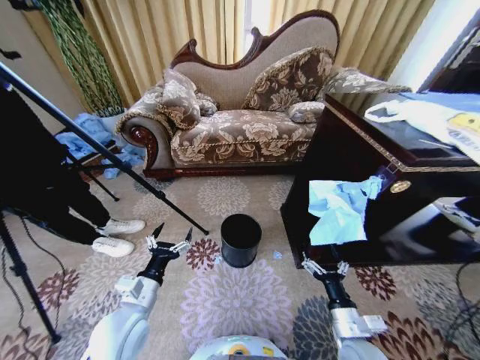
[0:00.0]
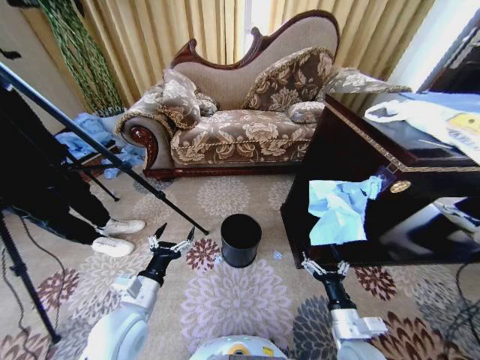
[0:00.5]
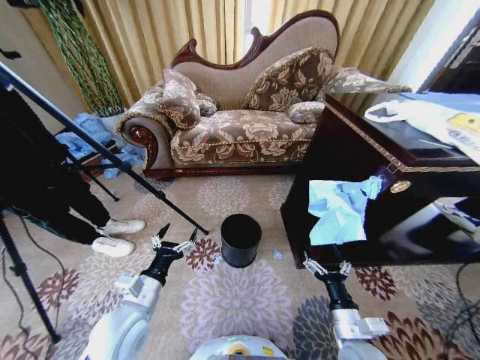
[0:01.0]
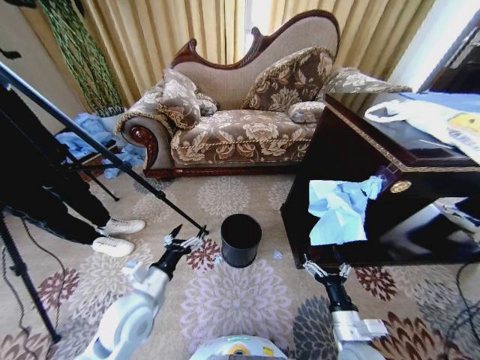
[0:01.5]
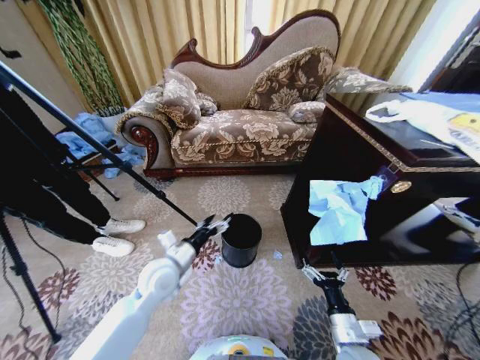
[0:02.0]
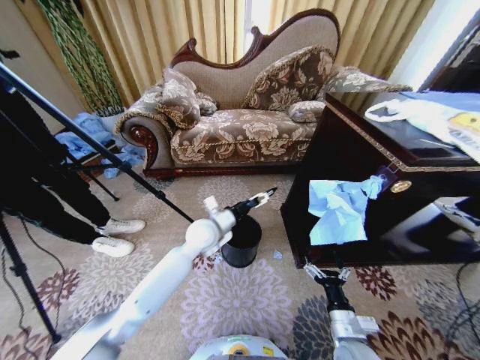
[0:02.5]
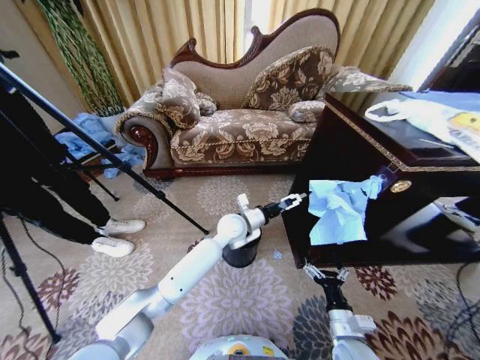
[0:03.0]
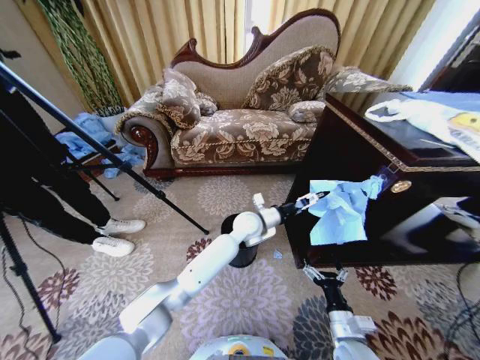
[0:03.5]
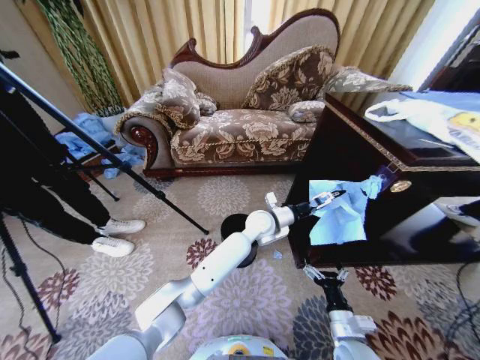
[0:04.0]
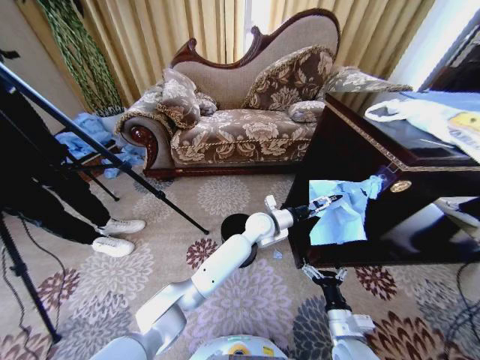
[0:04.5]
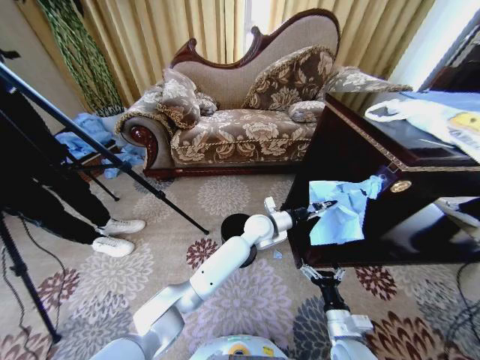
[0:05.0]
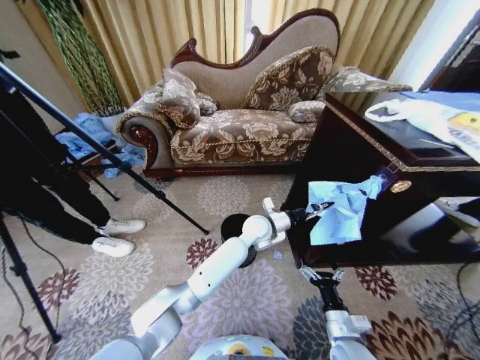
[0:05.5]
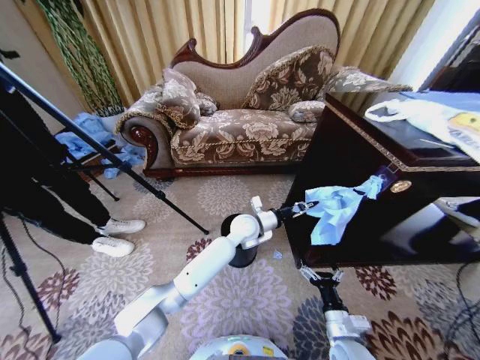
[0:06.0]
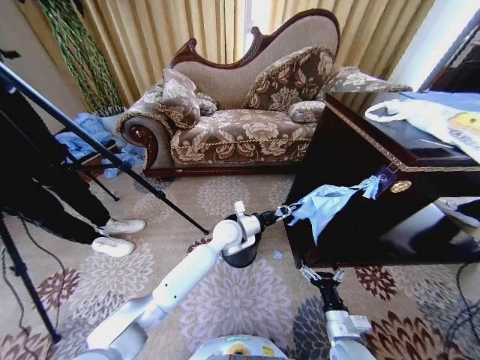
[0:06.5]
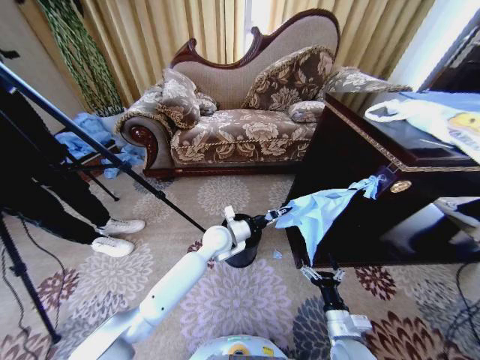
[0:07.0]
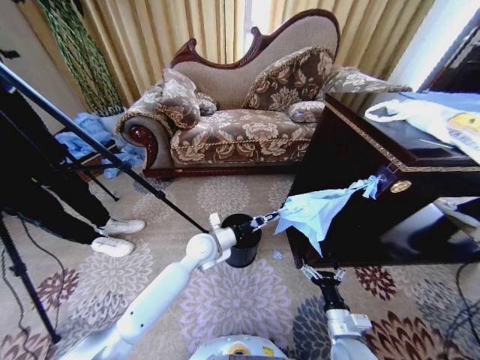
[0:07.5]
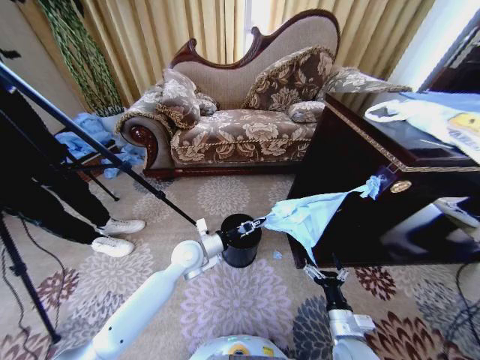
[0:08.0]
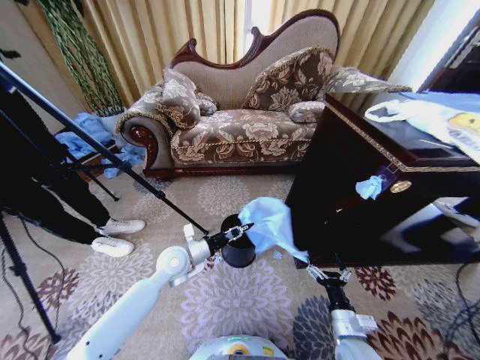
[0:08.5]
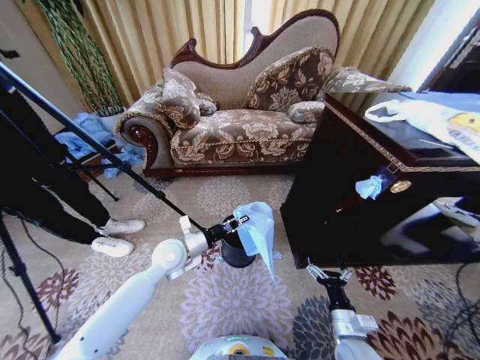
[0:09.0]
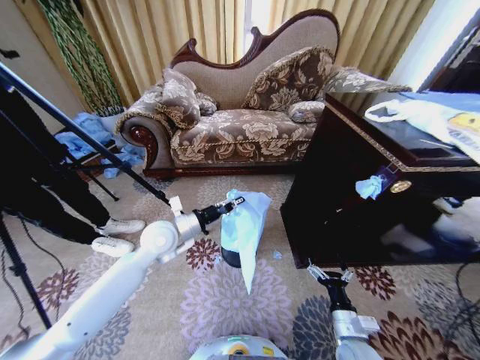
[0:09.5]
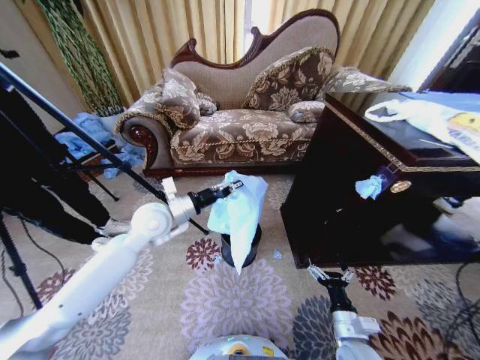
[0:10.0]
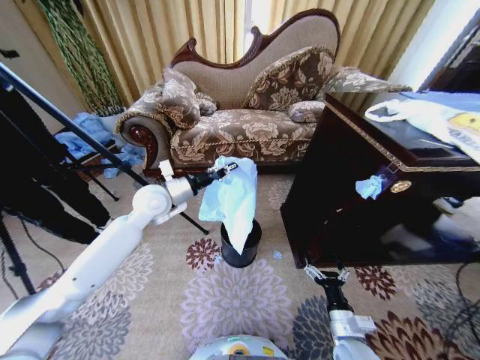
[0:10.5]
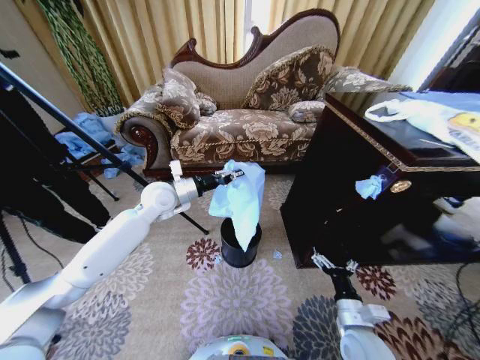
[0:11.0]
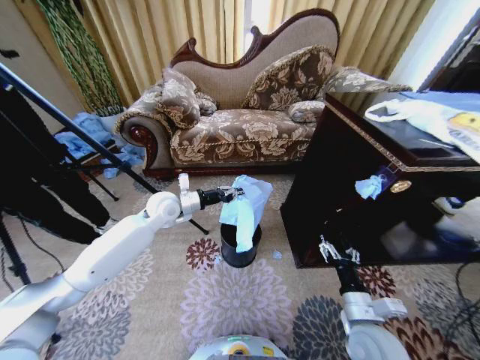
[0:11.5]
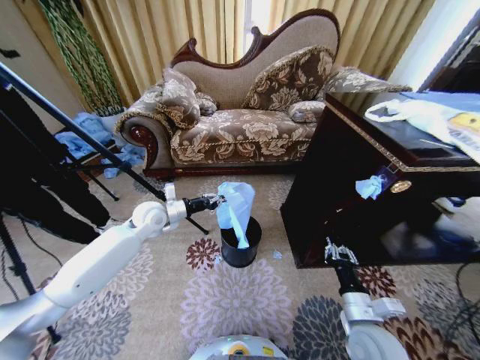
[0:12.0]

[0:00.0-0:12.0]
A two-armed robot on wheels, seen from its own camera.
Task of the whole recording: Place a garbage bag over the trash bin.
0:02.0 to 0:04.0: The left gripper heads to the right and forward, covering approximately 30 cm.
0:04.0 to 0:06.0: The left gripper changes place by some 5 cm, and closes its fingers.
0:06.0 to 0:08.0: The left gripper goes approximately 20 cm to the left and backward.
0:08.0 to 0:10.0: The left gripper shifts approximately 15 cm upward and to the left.
0:10.0 to 0:12.0: The right gripper shifts some 10 cm upward, and closes its fingers. The left gripper shifts about 10 cm downward, forward and to the left.

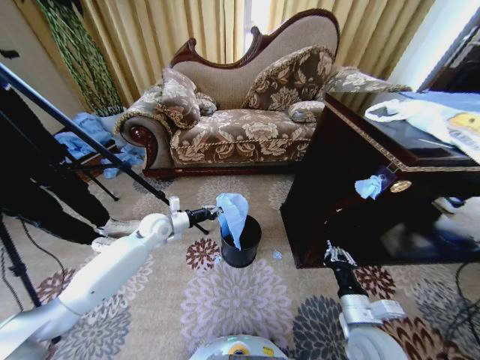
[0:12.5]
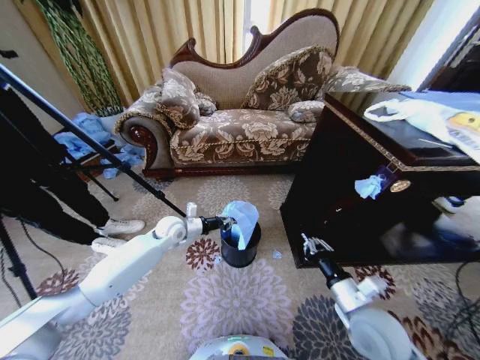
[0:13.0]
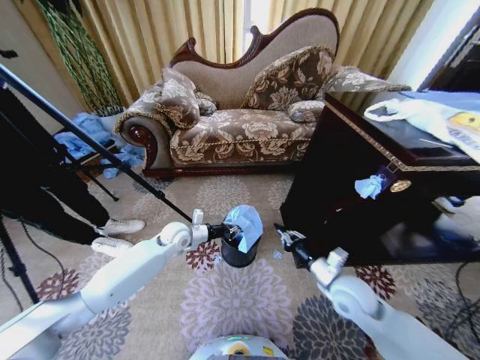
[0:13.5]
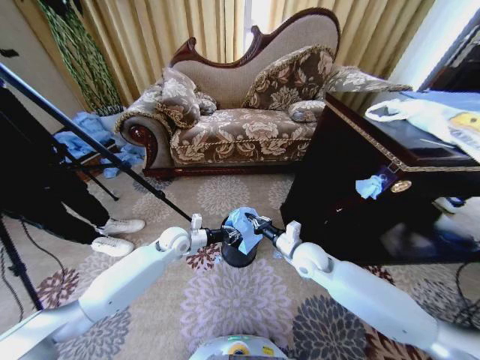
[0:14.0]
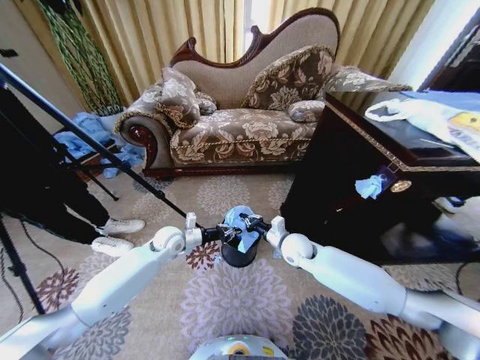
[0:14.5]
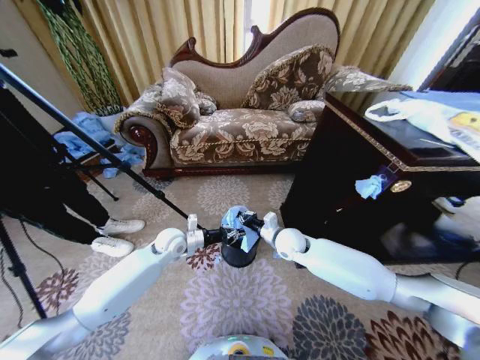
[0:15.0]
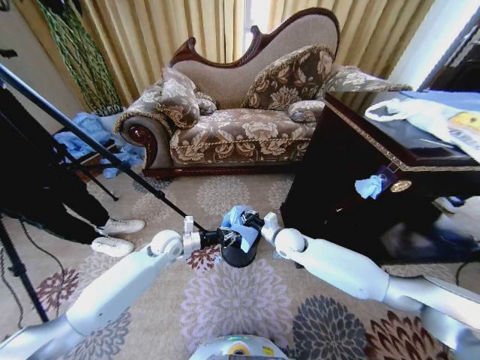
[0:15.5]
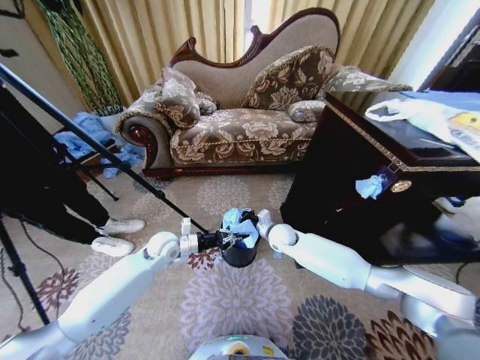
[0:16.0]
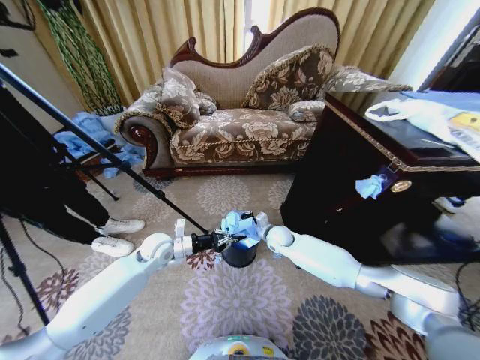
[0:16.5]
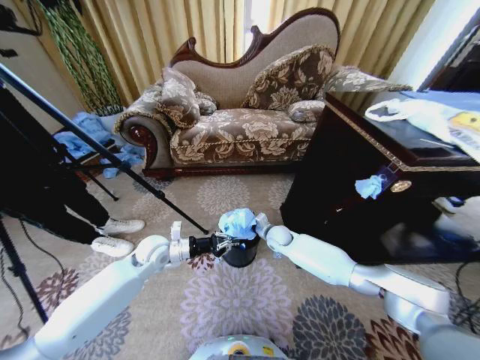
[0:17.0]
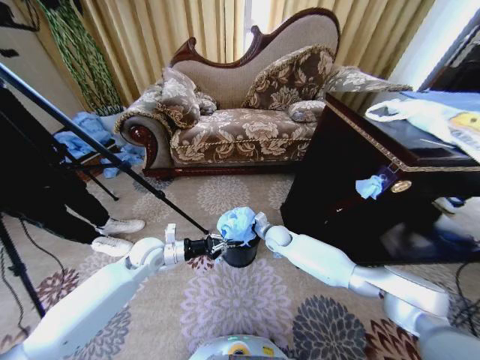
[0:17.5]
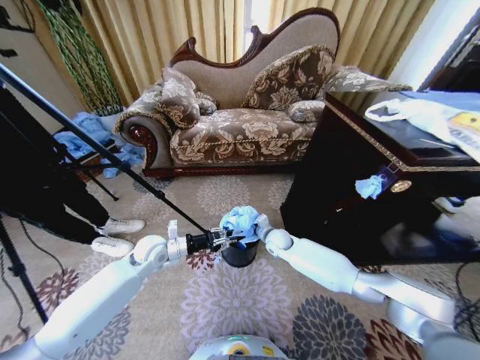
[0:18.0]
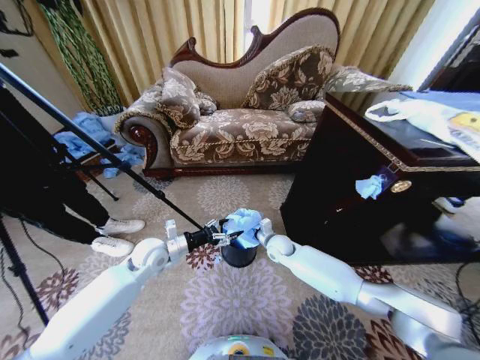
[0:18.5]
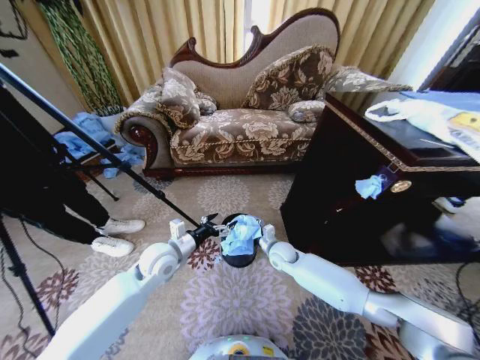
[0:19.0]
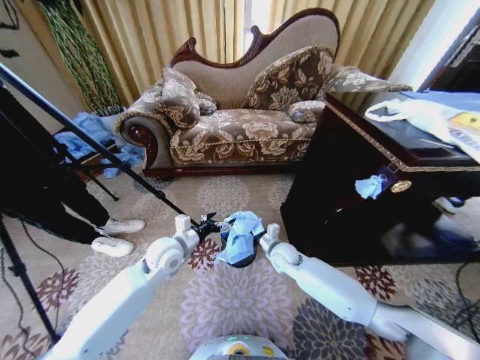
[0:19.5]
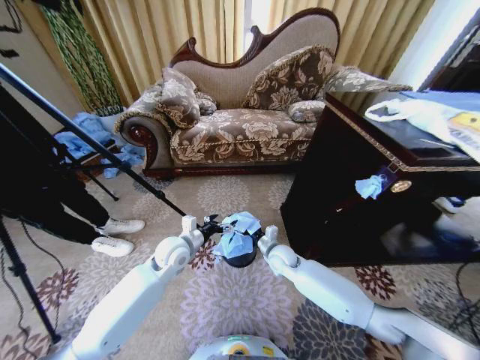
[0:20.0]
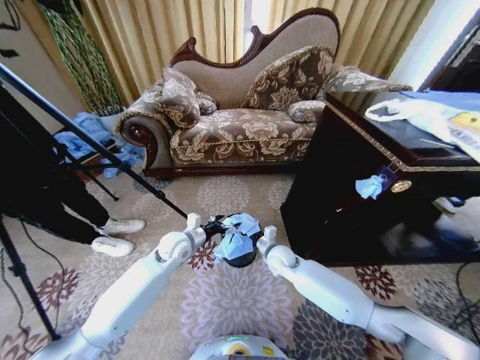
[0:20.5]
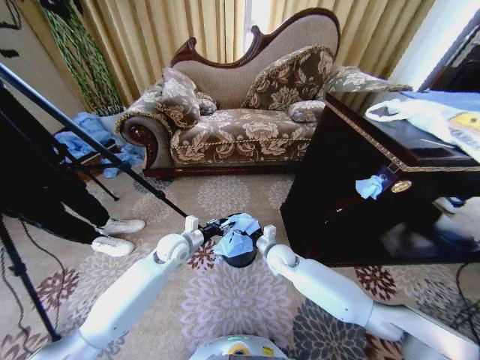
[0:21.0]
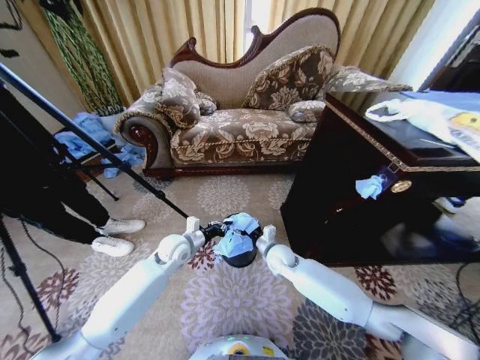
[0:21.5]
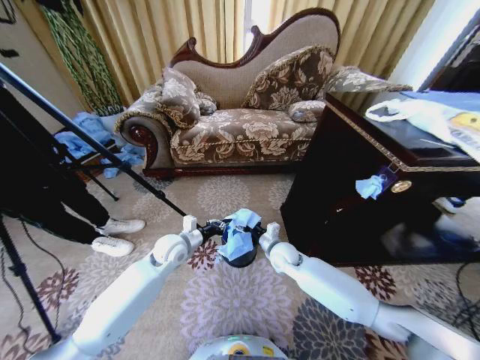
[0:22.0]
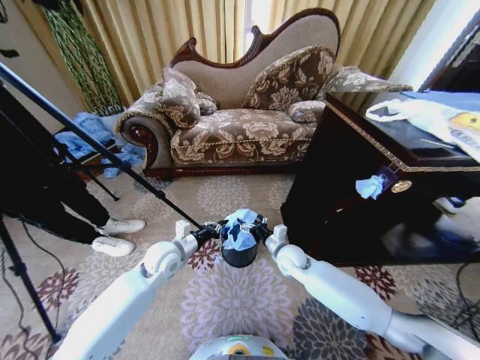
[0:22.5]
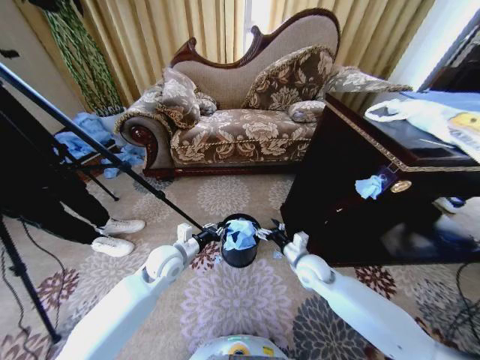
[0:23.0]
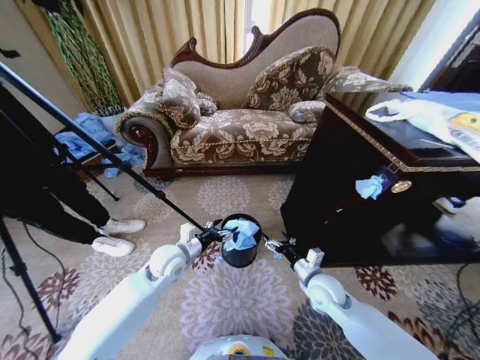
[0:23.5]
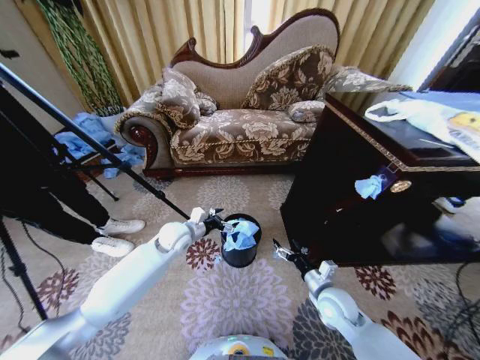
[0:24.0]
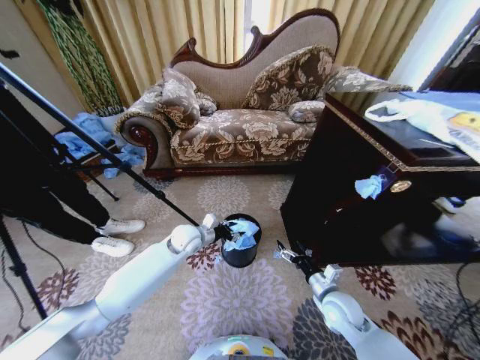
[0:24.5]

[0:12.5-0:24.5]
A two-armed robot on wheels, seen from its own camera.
Task of the whole recording: Place a garbage bag over the trash bin.
0:12.5 to 0:14.5: The right gripper shifts approximately 25 cm forward and to the left. Meanwhile the left gripper ends up roughly 5 cm from where it was.
0:14.5 to 0:16.5: The right gripper moves forward, some 5 cm.
0:16.5 to 0:18.5: The left gripper opens, while the right gripper opens up.
0:18.5 to 0:20.5: The left gripper goes about 5 cm to the right. The right gripper ends up about 5 cm from where it was.
0:20.5 to 0:22.5: The left gripper closes.
0:22.5 to 0:24.5: The left gripper moves forward, approximately 10 cm, and opens. Meanwhile the right gripper is displaced backward and to the right by roughly 20 cm.

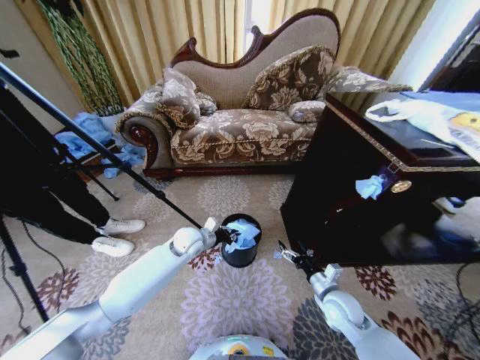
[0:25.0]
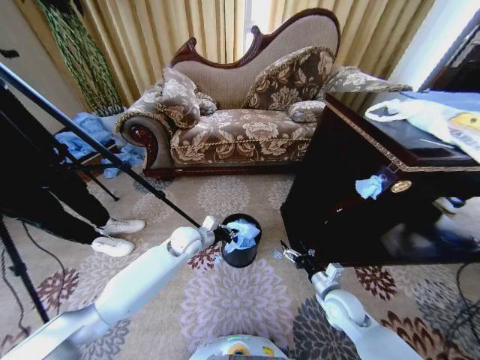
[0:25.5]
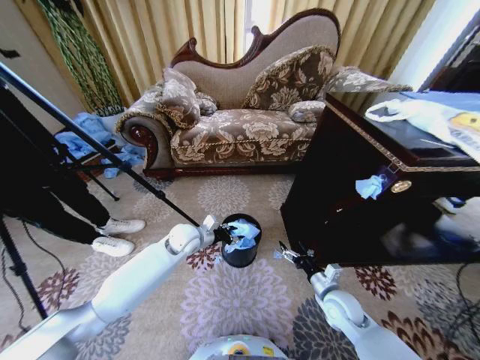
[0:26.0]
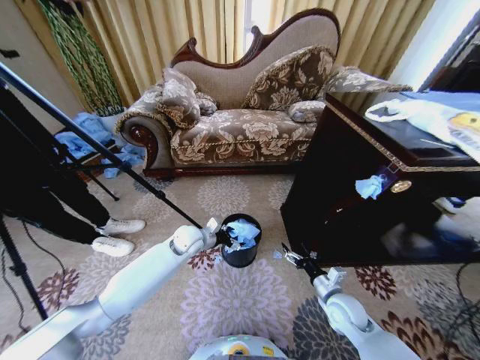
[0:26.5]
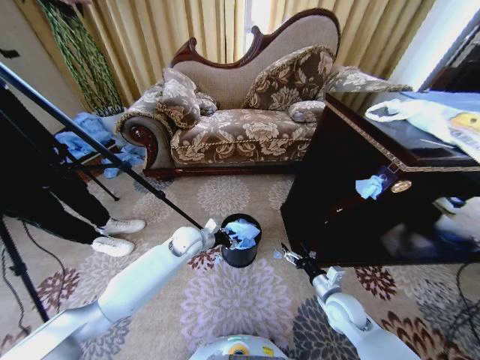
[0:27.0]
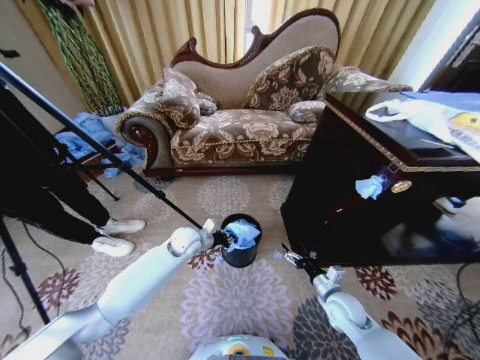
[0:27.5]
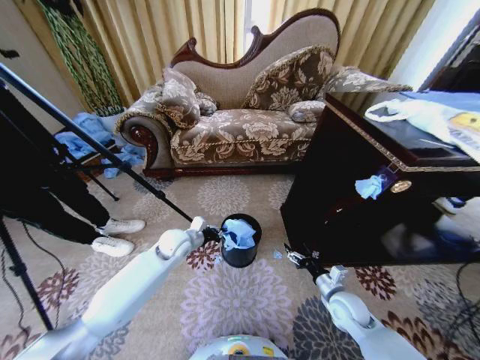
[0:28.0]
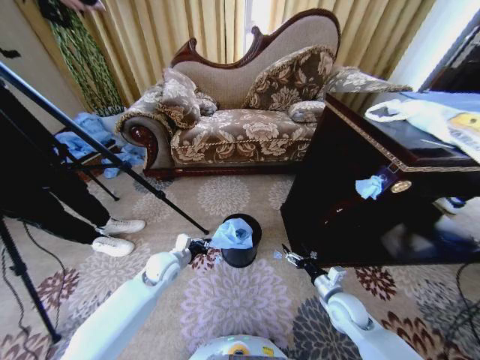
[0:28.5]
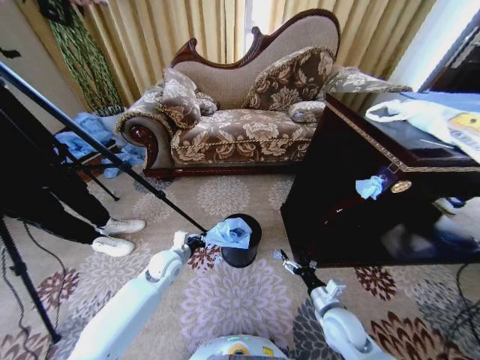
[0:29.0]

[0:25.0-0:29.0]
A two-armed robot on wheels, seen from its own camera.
Task of the whole recording: Place a garbage bag over the trash bin.
0:25.0 to 0:27.0: The left gripper opens, then closes again.
0:27.0 to 0:29.0: The left gripper goes approximately 10 cm backward and to the left, and closes its fingers.
